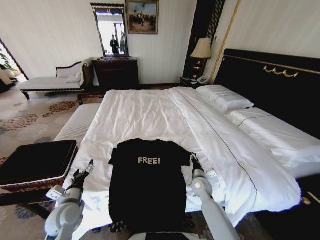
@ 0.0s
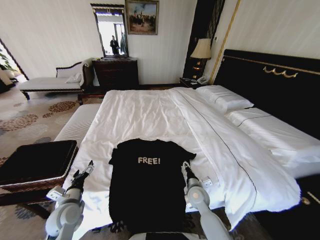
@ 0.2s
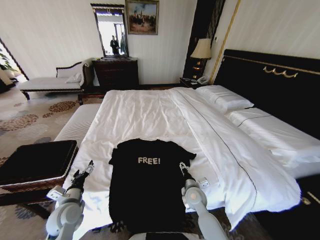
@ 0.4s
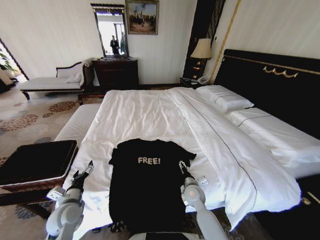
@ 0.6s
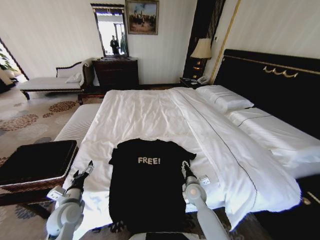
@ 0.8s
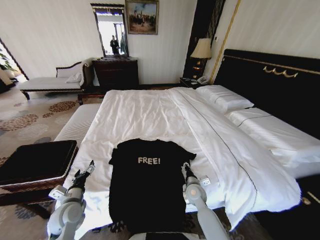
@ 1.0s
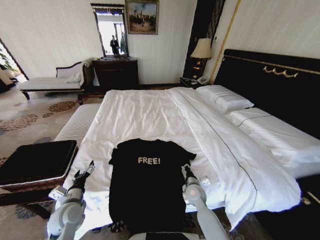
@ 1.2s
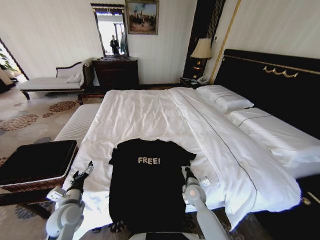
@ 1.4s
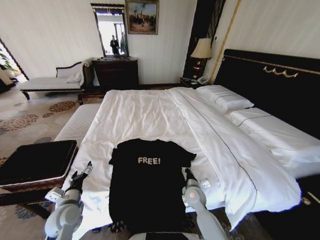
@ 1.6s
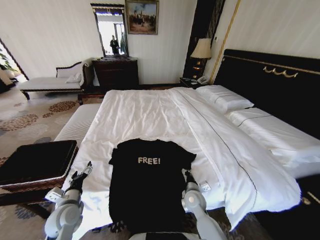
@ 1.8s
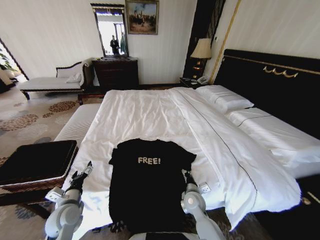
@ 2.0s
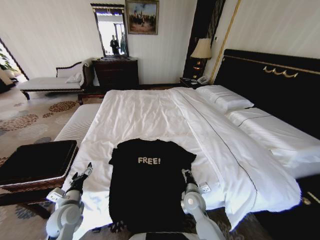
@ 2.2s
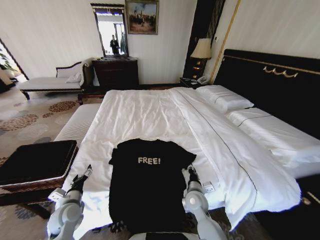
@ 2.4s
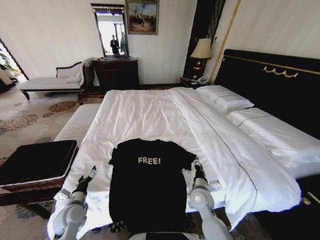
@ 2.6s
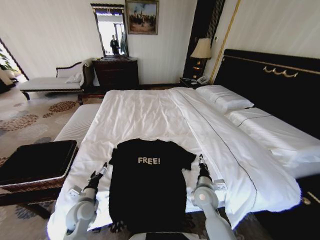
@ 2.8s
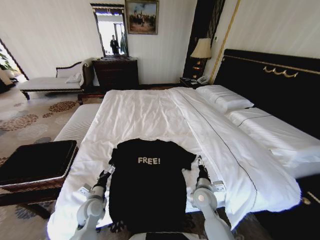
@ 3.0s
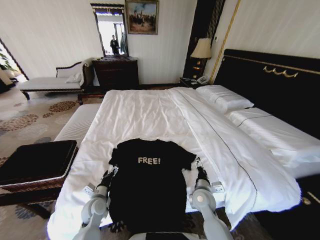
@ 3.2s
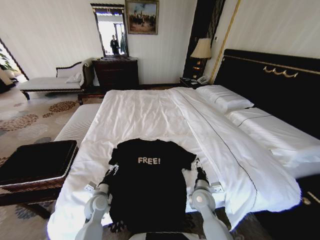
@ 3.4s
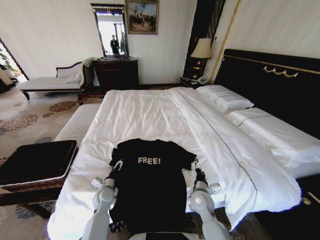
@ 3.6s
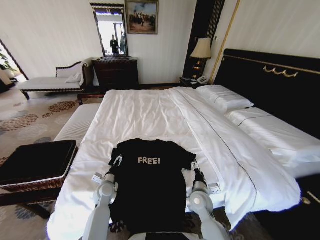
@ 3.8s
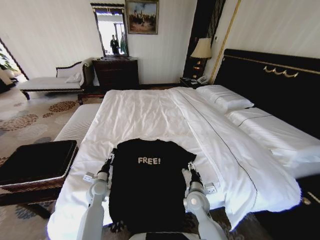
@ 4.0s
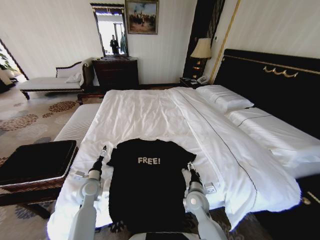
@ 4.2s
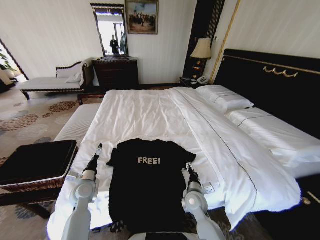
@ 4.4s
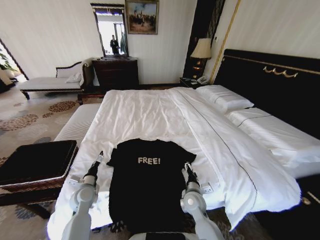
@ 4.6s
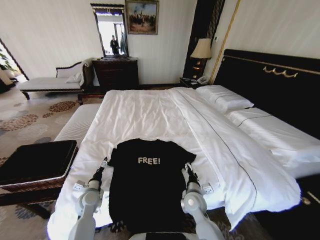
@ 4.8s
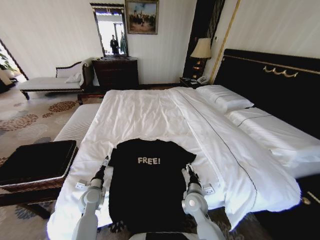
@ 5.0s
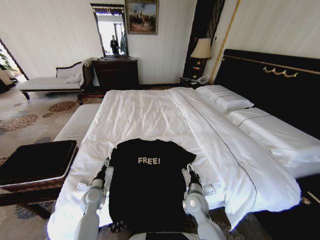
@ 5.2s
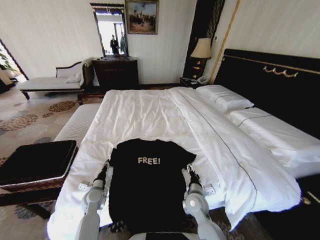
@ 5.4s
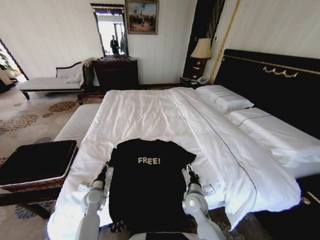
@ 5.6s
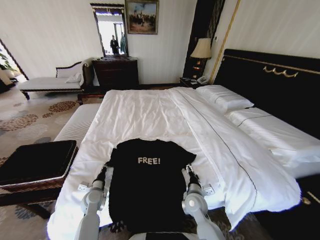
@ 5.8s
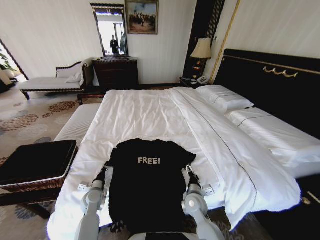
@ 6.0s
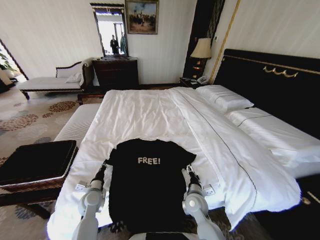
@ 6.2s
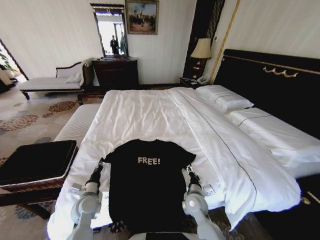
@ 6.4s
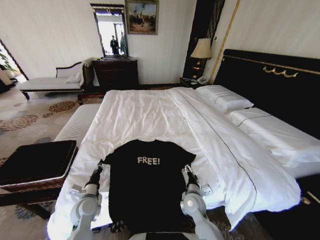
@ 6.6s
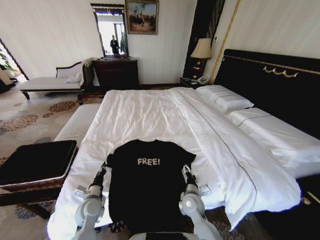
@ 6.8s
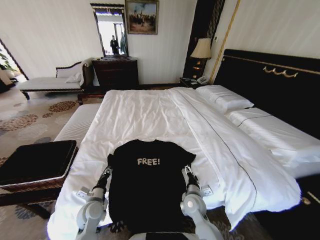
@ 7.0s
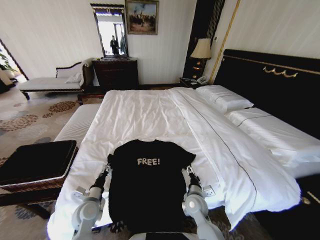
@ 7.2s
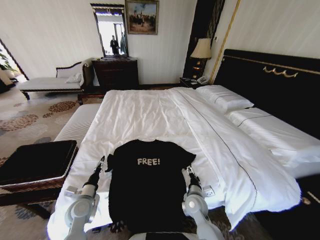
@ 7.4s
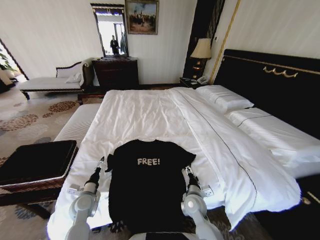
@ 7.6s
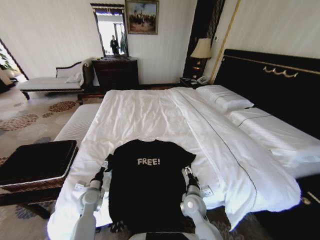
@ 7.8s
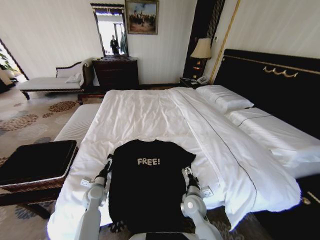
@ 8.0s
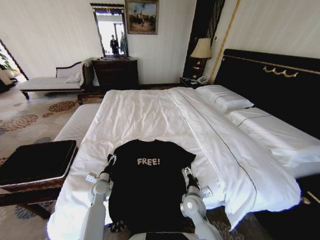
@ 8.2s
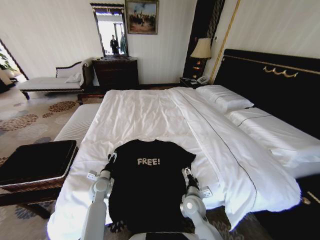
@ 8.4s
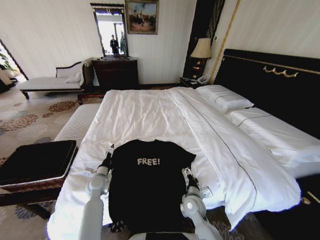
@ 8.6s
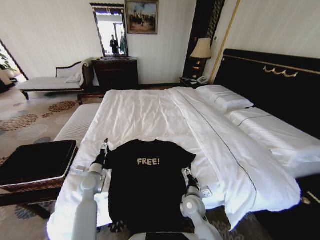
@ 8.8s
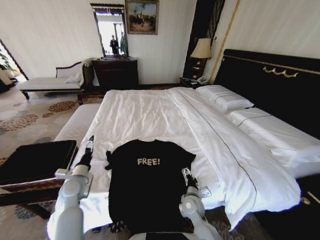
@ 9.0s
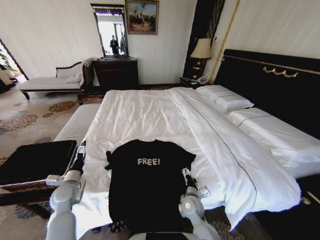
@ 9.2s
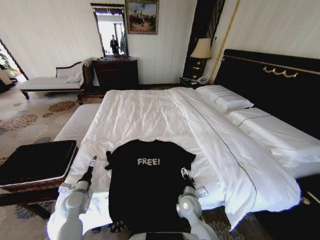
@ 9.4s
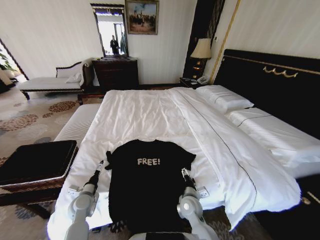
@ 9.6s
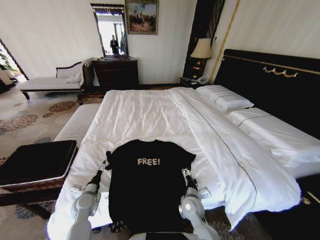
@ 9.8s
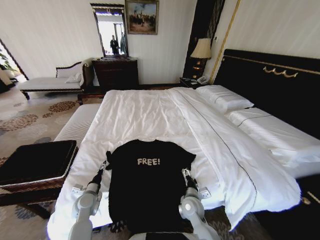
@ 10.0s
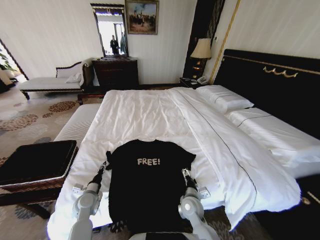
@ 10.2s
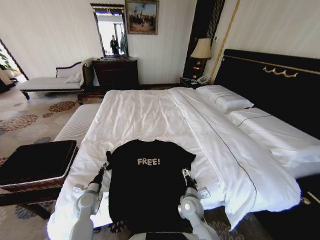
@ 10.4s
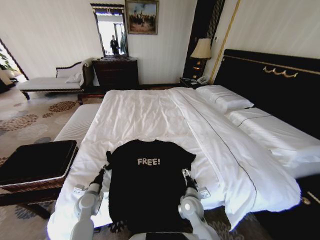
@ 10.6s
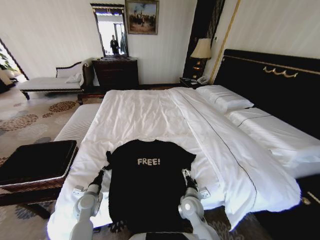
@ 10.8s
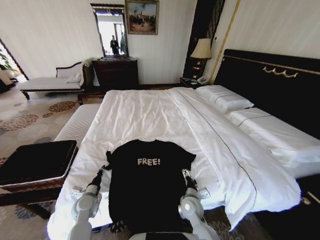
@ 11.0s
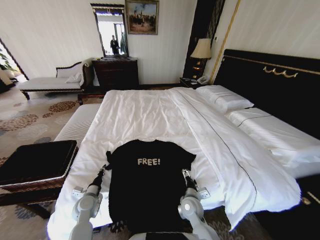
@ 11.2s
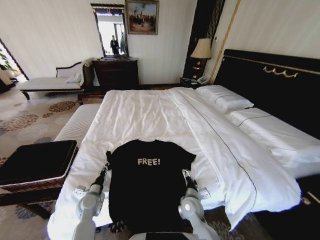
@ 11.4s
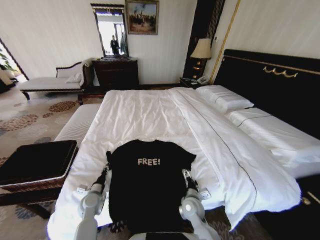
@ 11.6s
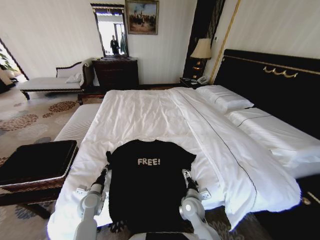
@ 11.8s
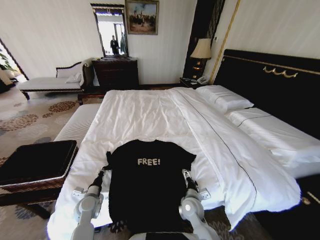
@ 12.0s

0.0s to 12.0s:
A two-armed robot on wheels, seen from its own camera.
Task of the whole recording: Fold the clothes on the bed and place them into the basket.
0.0s to 1.6s: The right gripper shifts by roughly 5 cm, and closes up.
1.6s to 3.0s: The left gripper is displaced to the right and downward by approximately 10 cm; the right gripper ends up some 5 cm from where it was, and opens its fingers.
3.0s to 4.4s: The left gripper shifts roughly 5 cm forward.
4.4s to 6.0s: The left gripper heads downward, covering about 5 cm, and closes its fingers.
6.0s to 7.6s: The left gripper opens up.
7.6s to 9.0s: The left gripper heads upward, covering about 10 cm.
9.0s to 10.4s: The left gripper moves downward, some 10 cm, and closes its fingers.
10.4s to 12.0s: There are only small adjustments of the grippers.

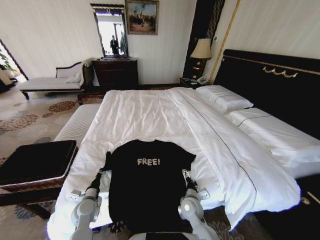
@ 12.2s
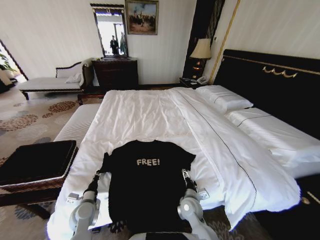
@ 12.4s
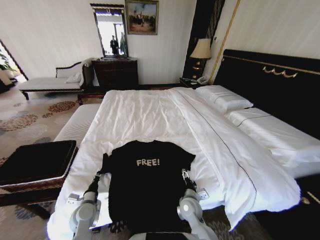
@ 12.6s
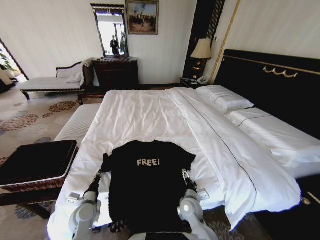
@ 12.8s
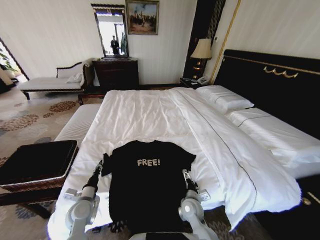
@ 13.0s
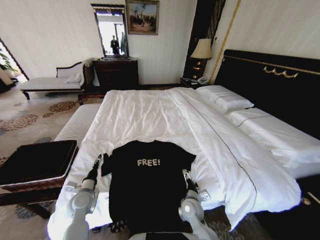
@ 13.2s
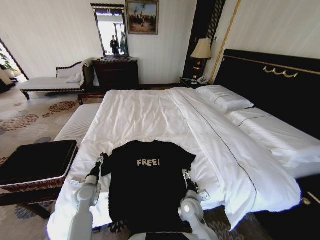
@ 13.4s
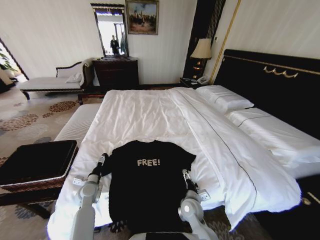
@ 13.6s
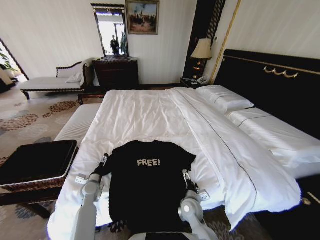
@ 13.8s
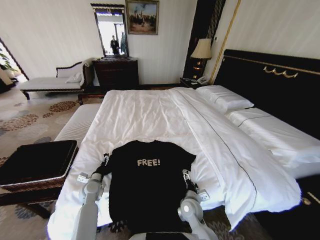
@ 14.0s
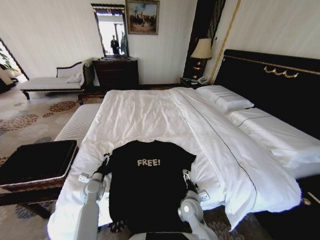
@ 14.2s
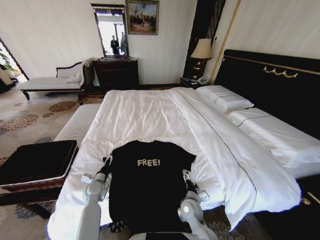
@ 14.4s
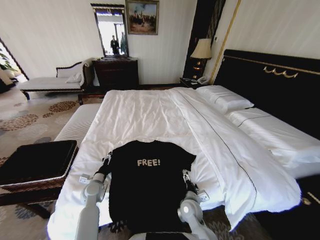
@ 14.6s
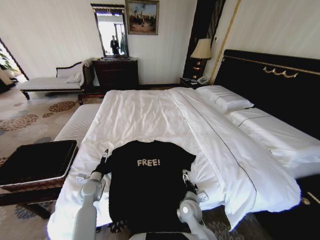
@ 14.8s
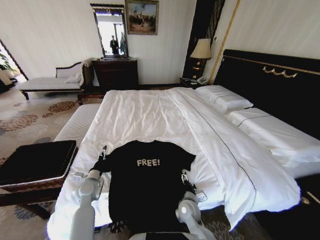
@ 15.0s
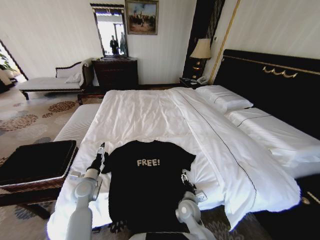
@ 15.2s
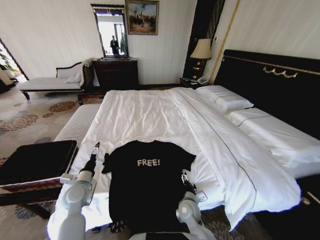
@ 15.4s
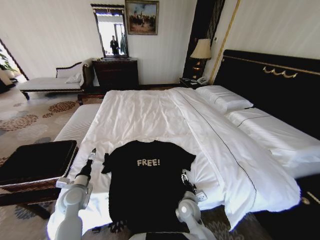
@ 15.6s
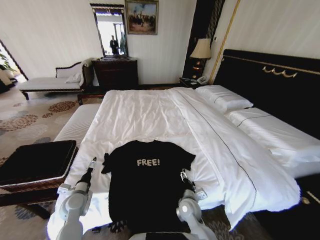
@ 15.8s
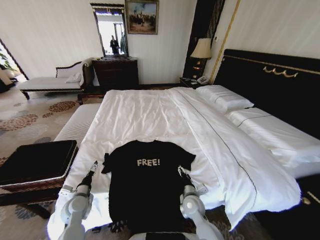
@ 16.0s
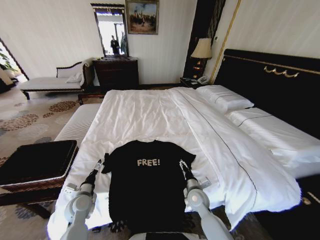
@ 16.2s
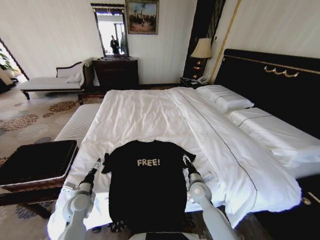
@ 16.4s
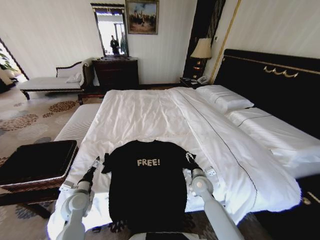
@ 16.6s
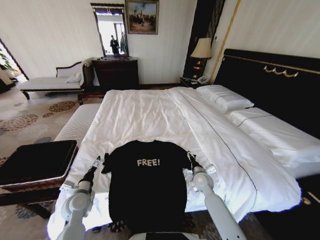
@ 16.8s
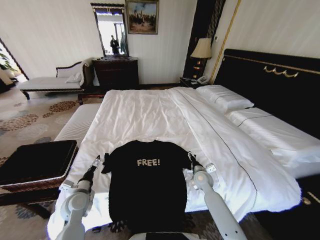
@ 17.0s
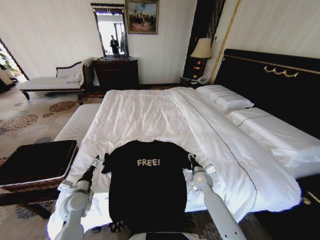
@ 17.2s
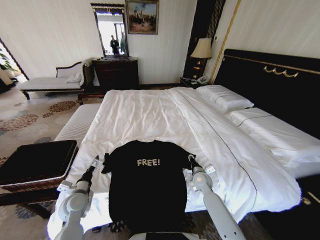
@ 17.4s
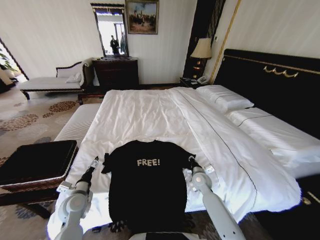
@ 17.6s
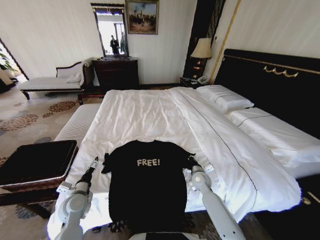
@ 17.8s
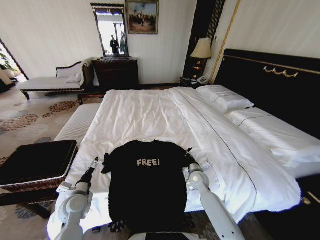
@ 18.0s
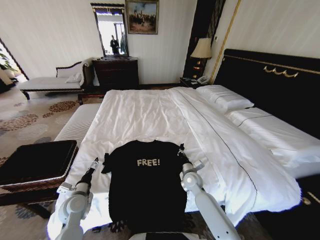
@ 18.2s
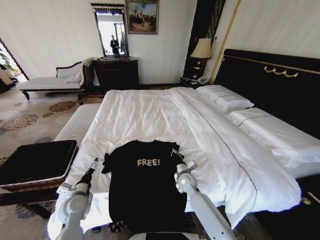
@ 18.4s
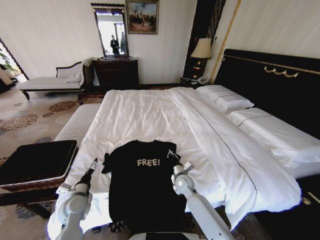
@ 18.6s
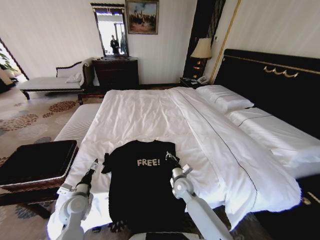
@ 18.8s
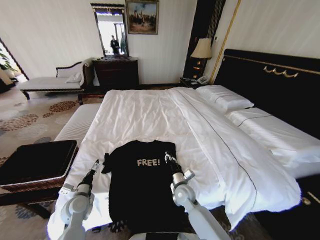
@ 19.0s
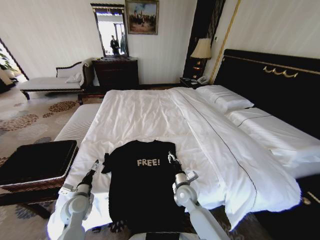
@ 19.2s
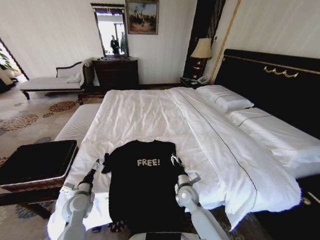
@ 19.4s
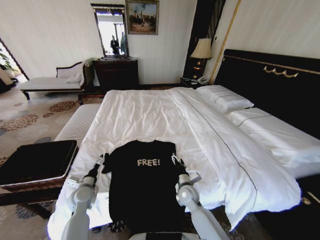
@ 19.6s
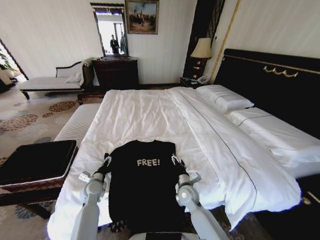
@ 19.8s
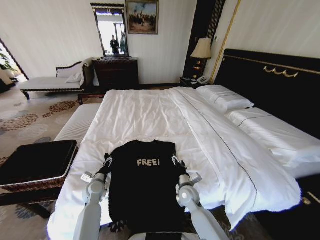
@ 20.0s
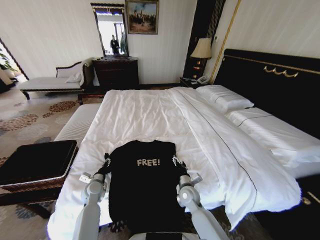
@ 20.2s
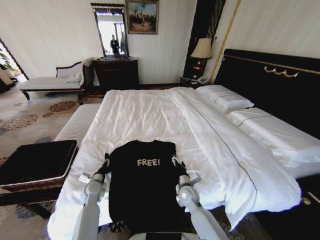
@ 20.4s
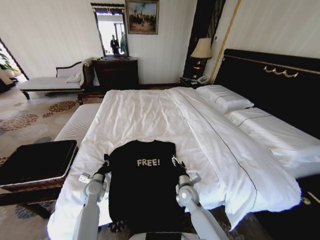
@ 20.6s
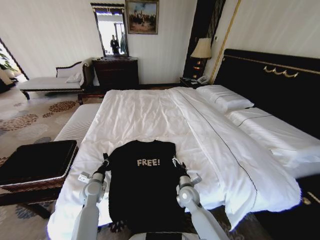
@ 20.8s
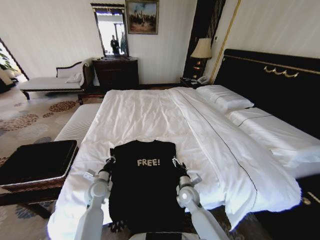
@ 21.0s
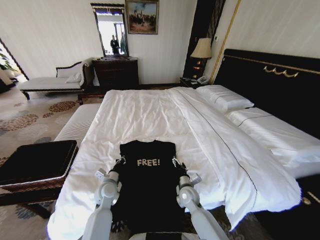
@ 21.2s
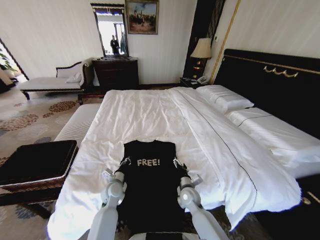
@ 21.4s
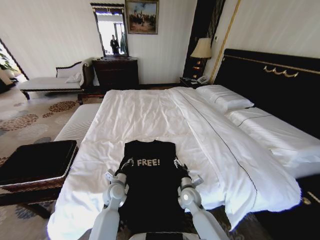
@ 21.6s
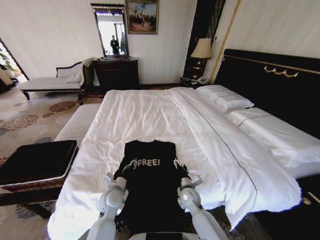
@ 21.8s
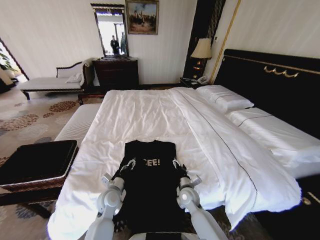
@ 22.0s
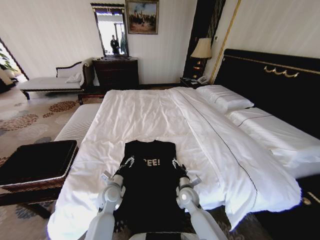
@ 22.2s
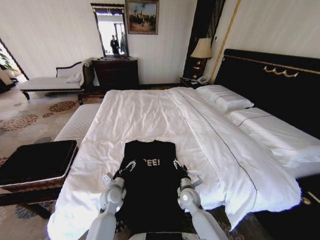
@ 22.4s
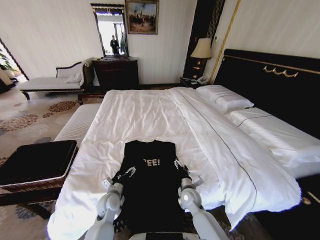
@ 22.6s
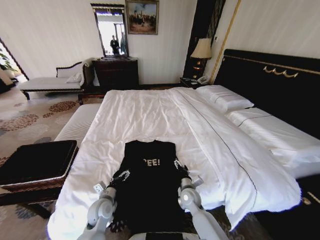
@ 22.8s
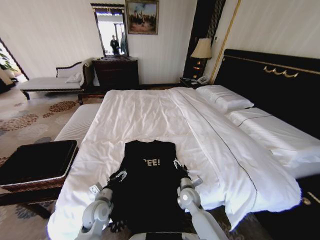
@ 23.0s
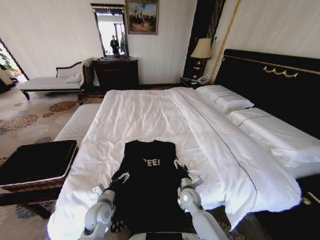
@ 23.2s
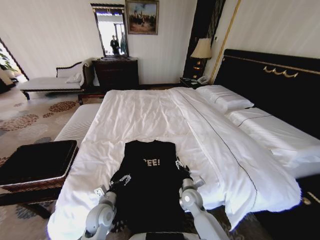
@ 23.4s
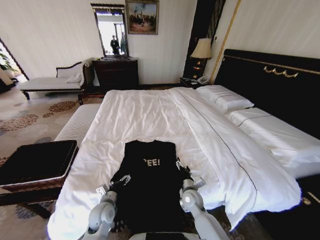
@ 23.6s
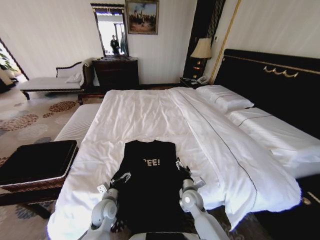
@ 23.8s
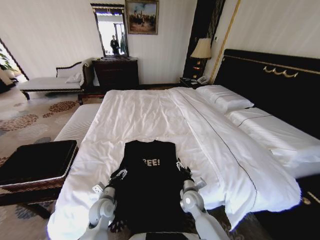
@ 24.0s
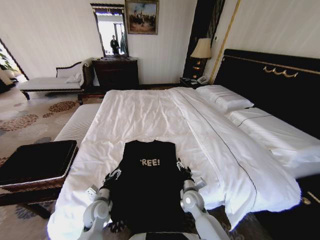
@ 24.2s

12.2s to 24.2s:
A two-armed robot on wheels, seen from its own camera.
Task of the whole recording: Fold the clothes on the bed and place them into the basket.
12.2s to 13.8s: The left gripper moves forward, roughly 10 cm, and opens up.
13.8s to 15.2s: The left gripper is displaced upward by some 5 cm.
15.2s to 16.6s: The left gripper changes place by about 5 cm; the right gripper goes about 15 cm forward, to the right and upward.
16.6s to 18.2s: The right gripper closes.
18.2s to 19.8s: The left gripper shifts some 5 cm forward; the right gripper shifts some 5 cm backward, and opens.
19.8s to 21.2s: The left gripper heads to the right, covering approximately 10 cm, and closes.
21.2s to 22.6s: The left gripper shifts by about 5 cm, and opens its fingers.
22.6s to 24.2s: The grippers stay close to where they were, moving slightly.
